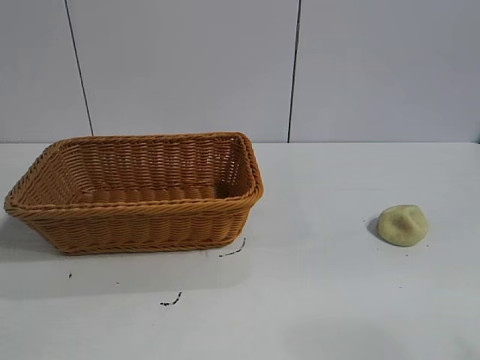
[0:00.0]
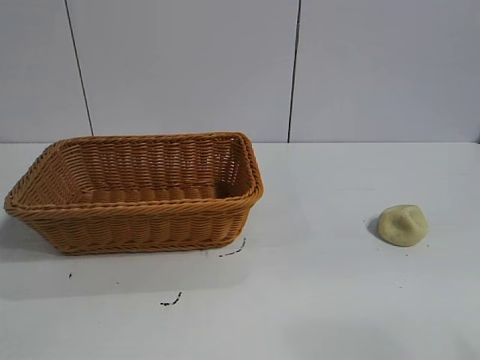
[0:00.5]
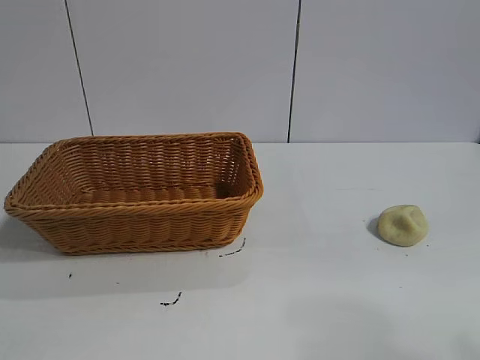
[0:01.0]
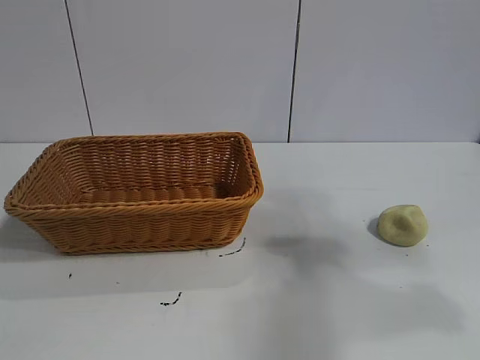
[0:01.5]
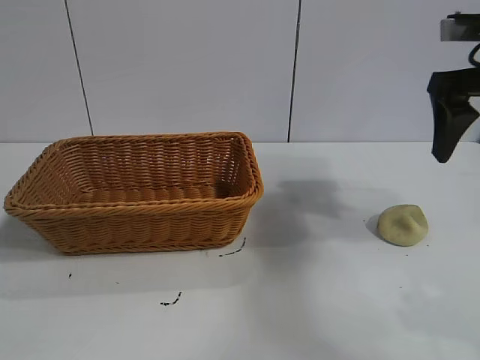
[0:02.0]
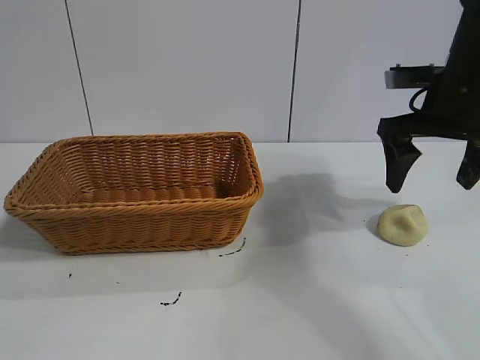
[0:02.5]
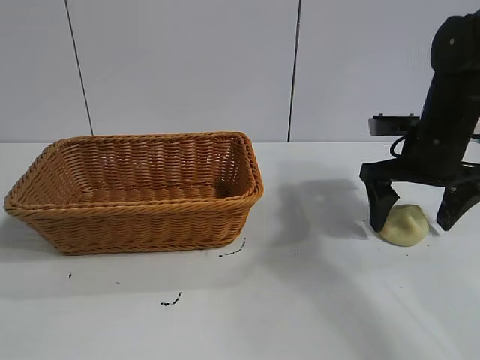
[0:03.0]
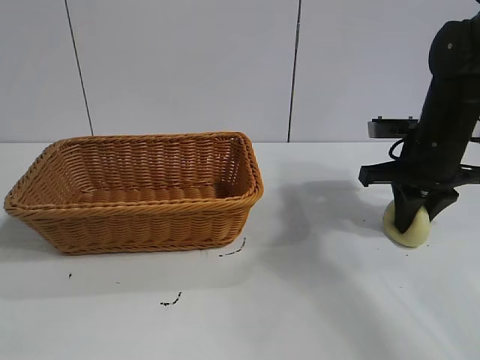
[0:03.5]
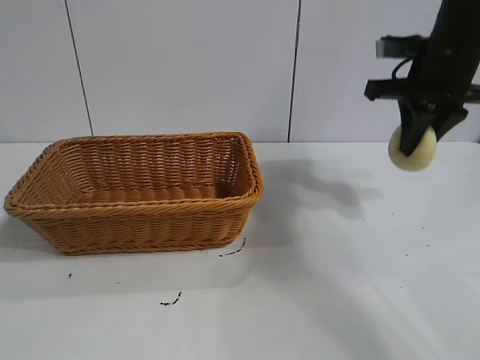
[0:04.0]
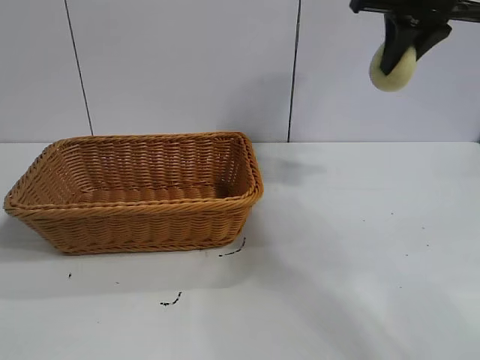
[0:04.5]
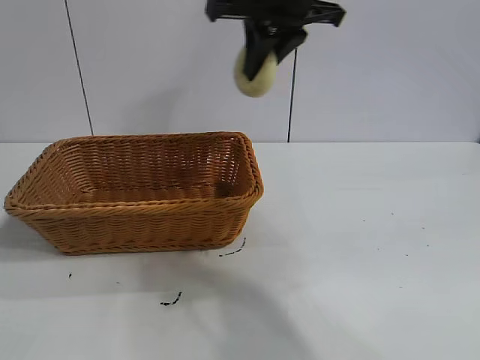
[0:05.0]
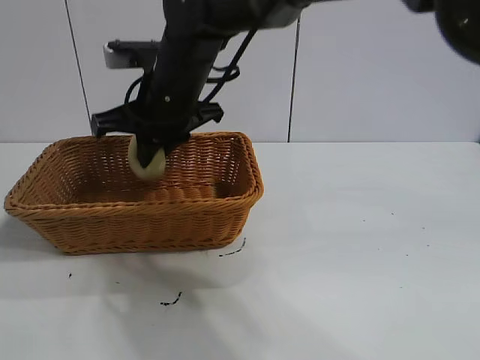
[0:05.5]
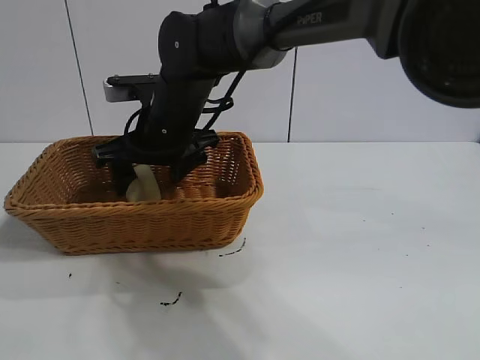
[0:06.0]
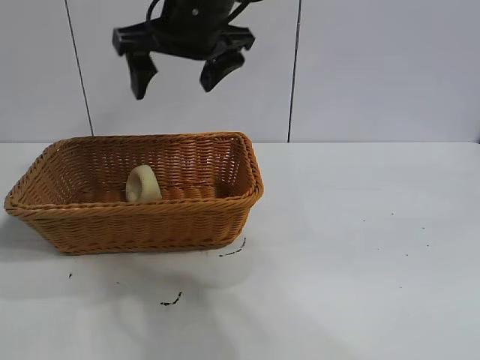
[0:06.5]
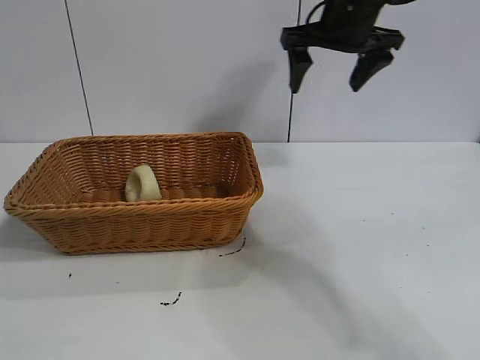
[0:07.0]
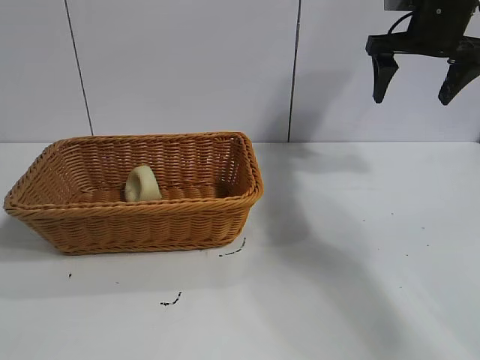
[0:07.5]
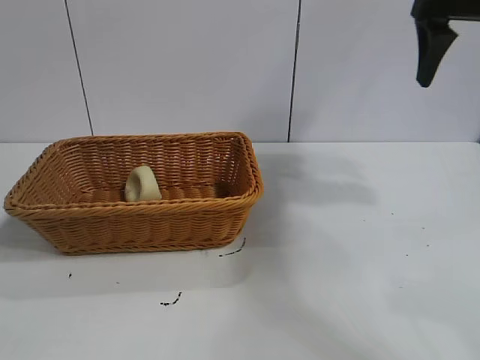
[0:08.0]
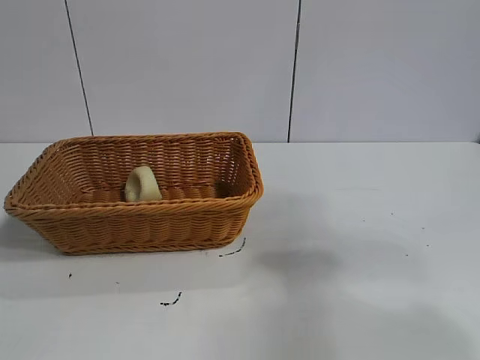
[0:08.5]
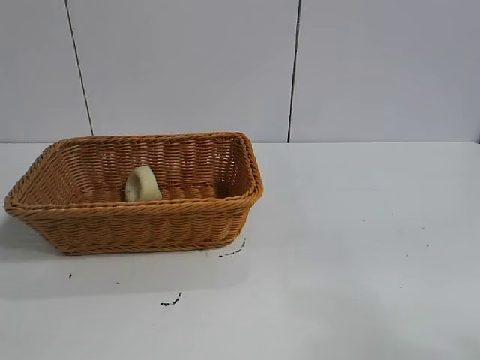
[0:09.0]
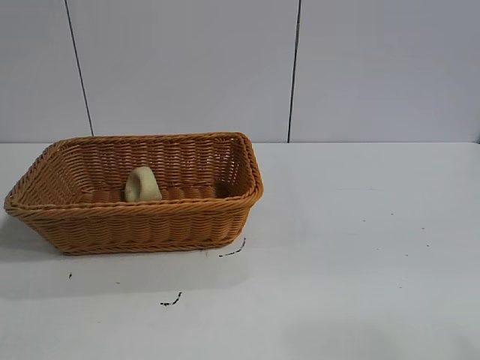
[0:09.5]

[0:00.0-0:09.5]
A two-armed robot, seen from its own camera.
Task of the whole recording: pick up the egg yolk pastry and put it into the basket.
Step, 0:01.0 to 0:03.5: Grasp egg yolk pastry with right gripper.
Step, 0:04.0 to 0:06.0: Place the egg yolk pastry in the basket with right gripper.

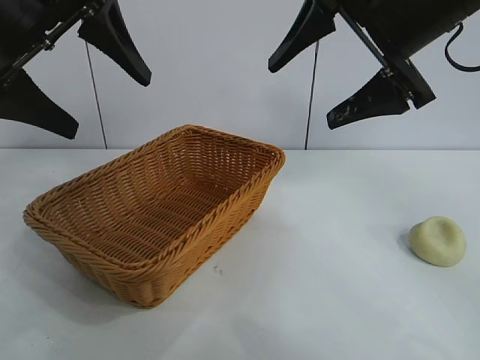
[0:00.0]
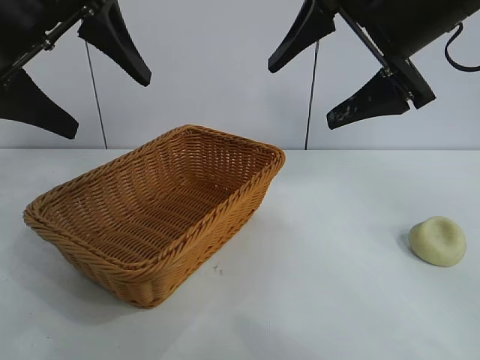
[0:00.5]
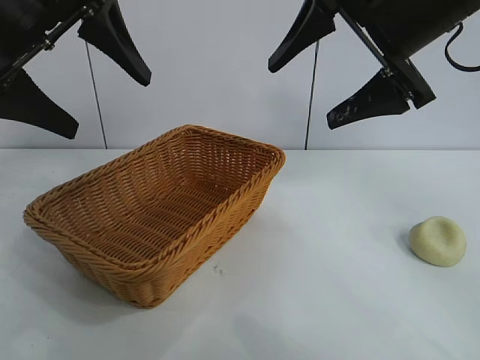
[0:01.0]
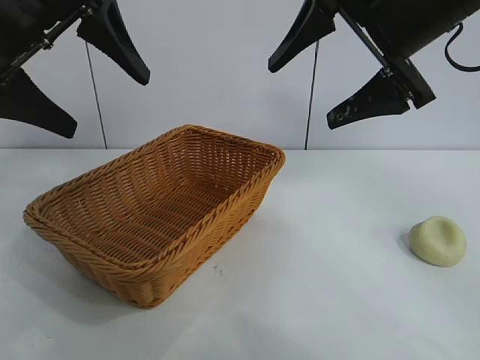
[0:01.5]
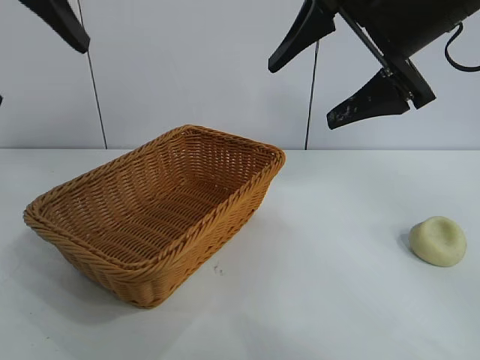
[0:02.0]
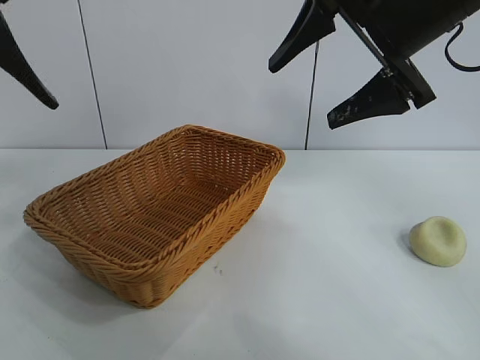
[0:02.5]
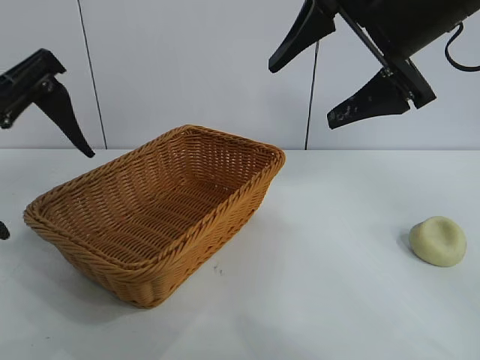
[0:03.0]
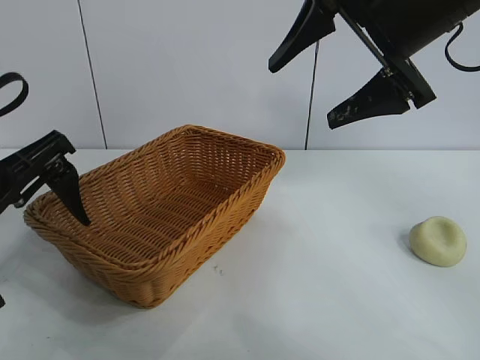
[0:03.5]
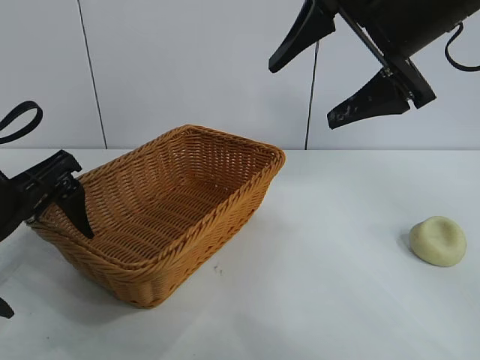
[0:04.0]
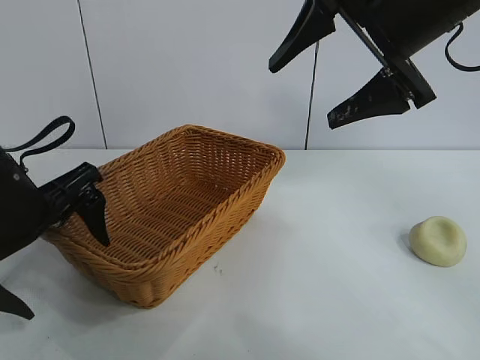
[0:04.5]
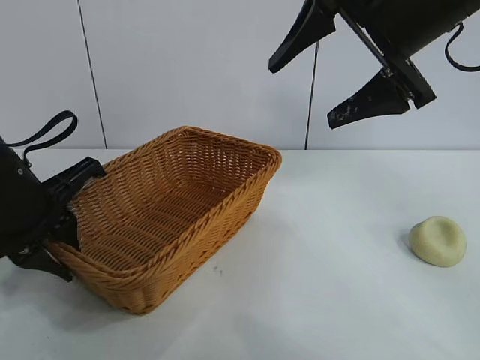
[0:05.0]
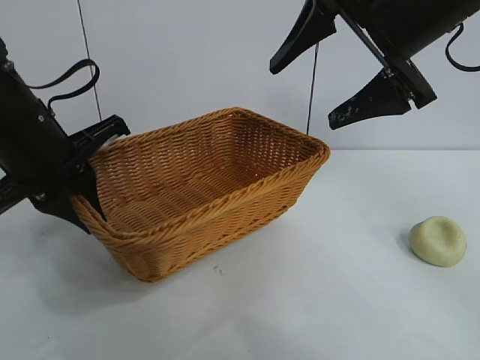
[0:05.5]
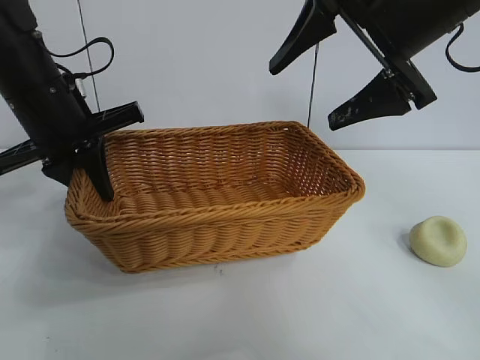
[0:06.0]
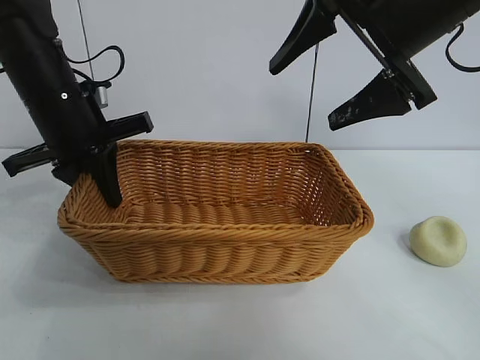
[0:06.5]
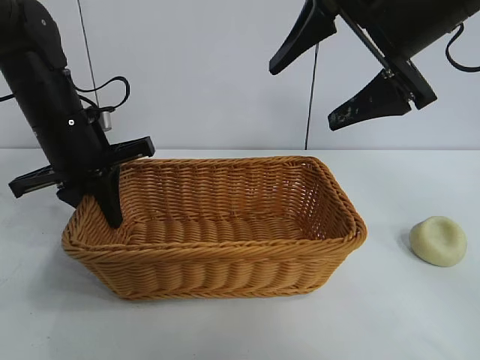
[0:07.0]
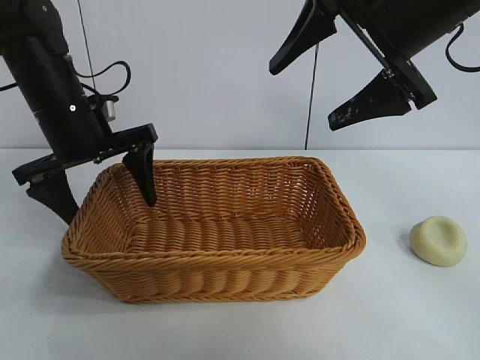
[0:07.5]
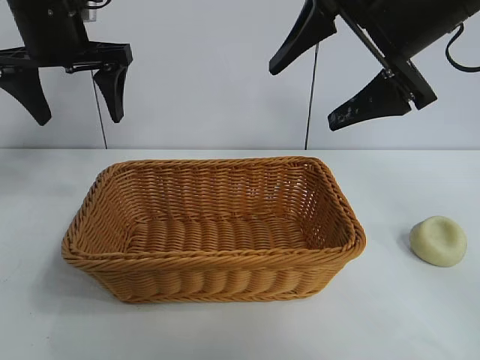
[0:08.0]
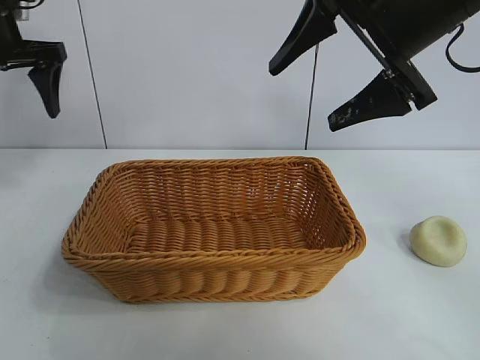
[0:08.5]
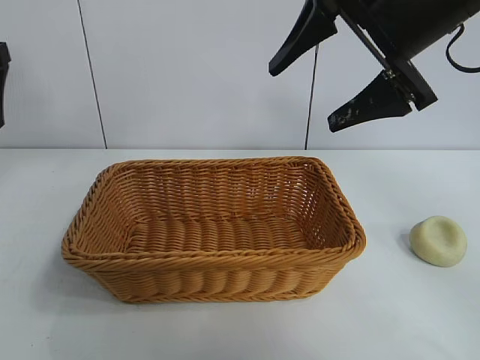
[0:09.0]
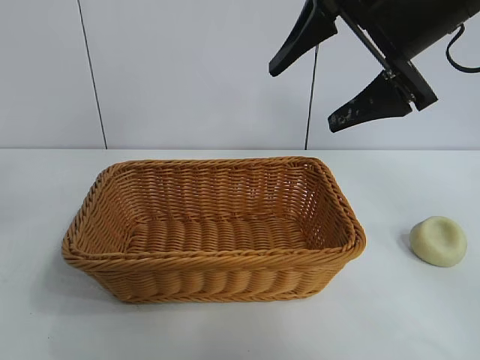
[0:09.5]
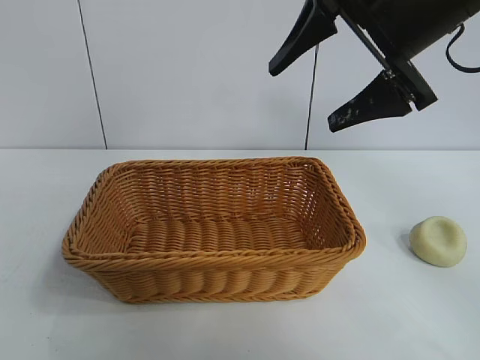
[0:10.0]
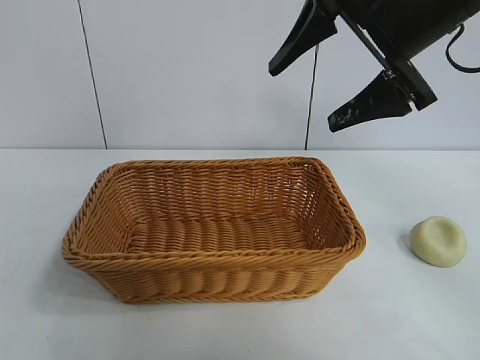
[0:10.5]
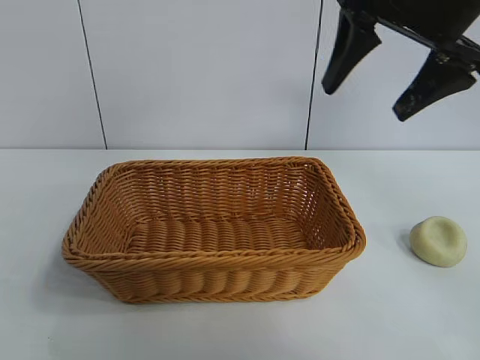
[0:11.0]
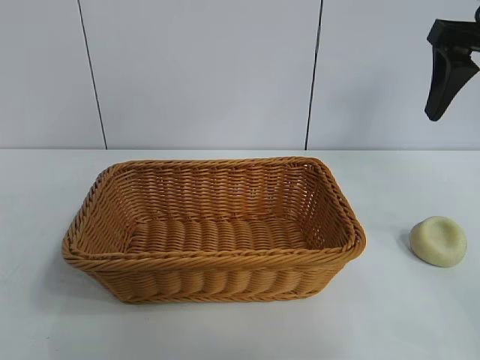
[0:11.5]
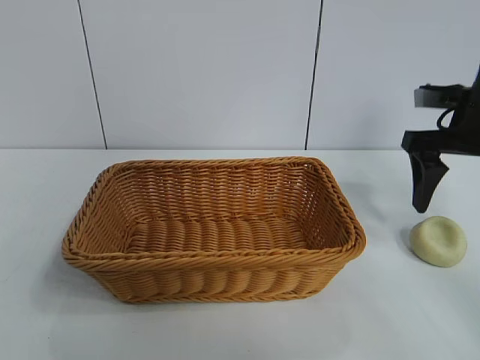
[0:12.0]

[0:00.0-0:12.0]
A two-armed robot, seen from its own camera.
Task of the whole recording: pick up the egg yolk pastry and put it into the basket.
Step, 0:00.0 to 0:05.0: Grasp the basket with left gripper.
Step, 0:05.5 to 0:07.0: Place the basket in the center of view with left gripper.

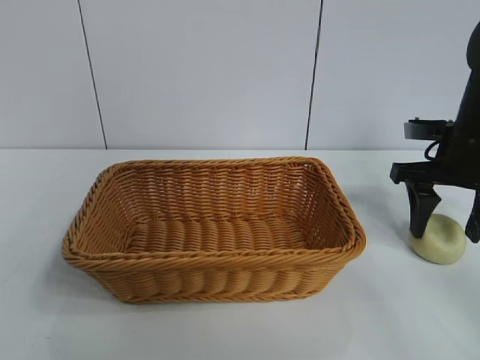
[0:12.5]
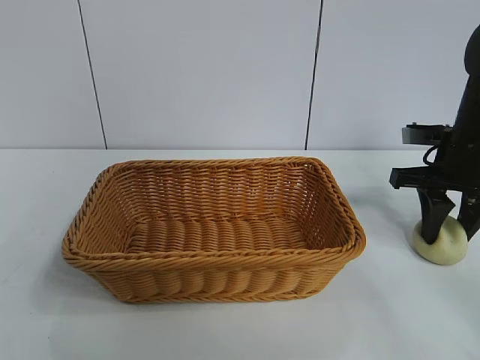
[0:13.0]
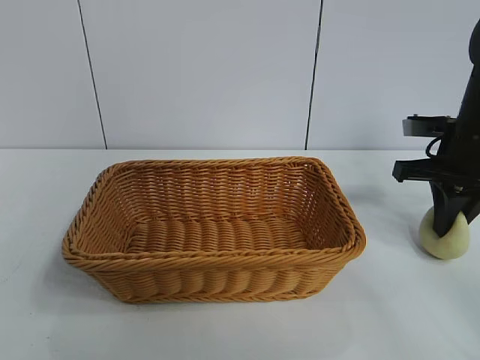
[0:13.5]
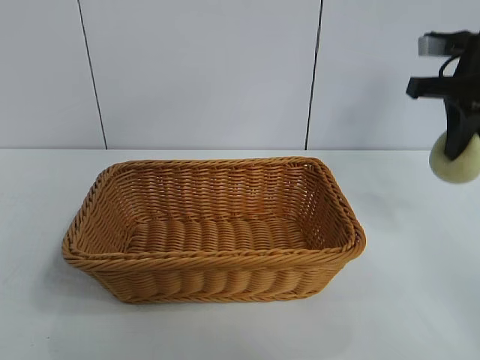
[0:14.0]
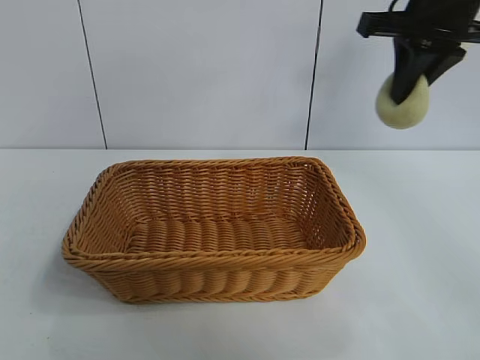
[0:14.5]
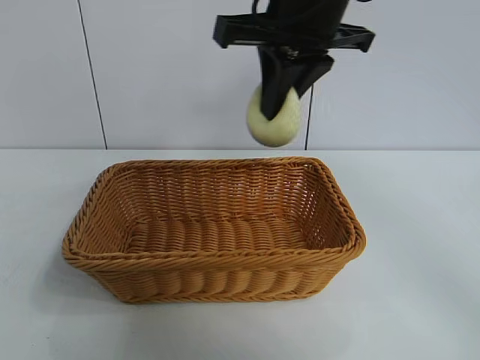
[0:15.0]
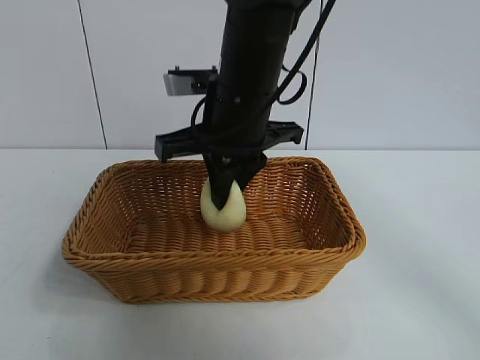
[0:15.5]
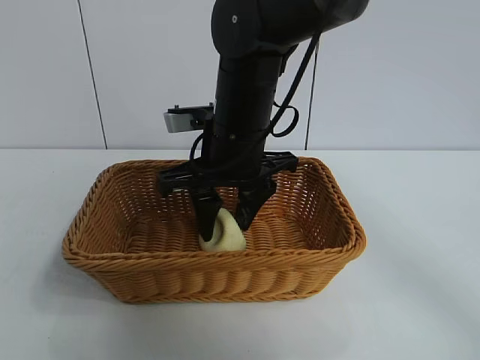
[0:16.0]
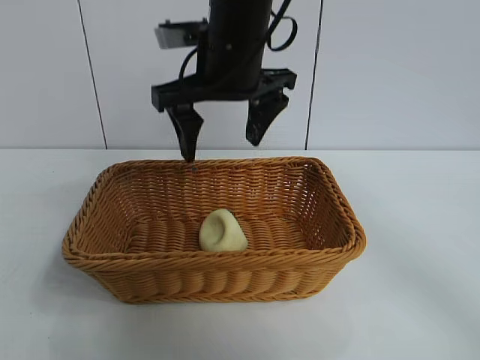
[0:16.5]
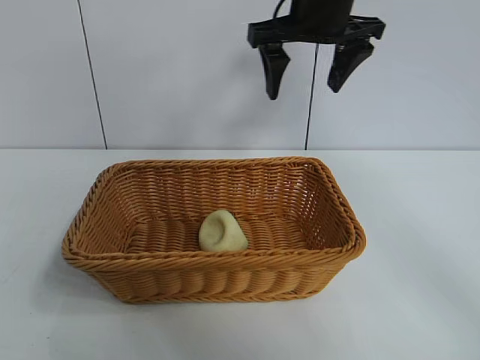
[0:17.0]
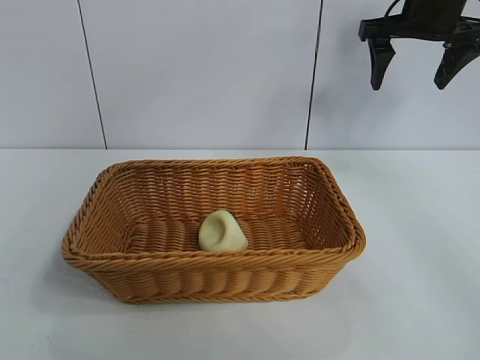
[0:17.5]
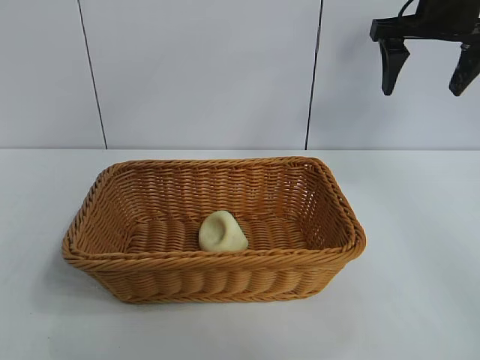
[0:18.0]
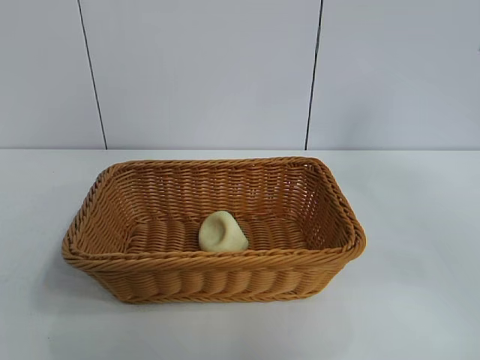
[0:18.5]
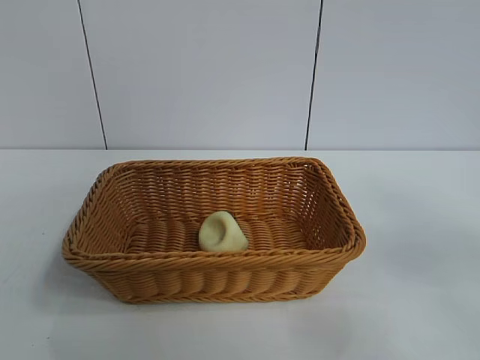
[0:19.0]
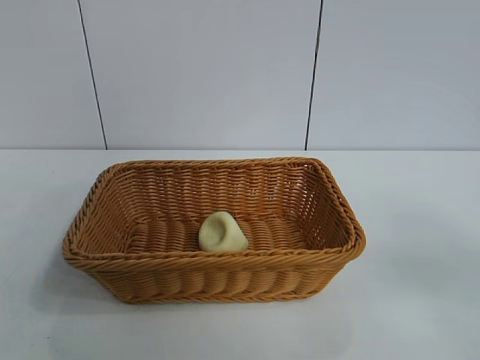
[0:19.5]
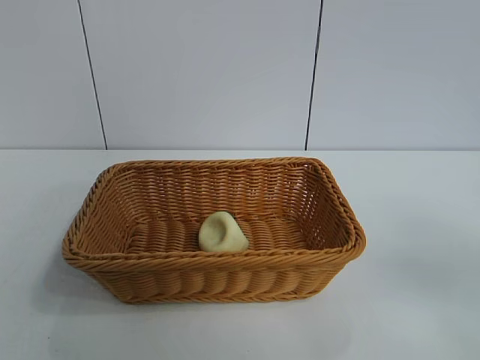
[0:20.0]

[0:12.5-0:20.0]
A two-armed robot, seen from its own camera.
Task of the whole recording: pick up the egg yolk pastry and put it into the basket.
Step, 0:13.5 to 0:16.0: Place the egg yolk pastry in the basket with right gripper.
